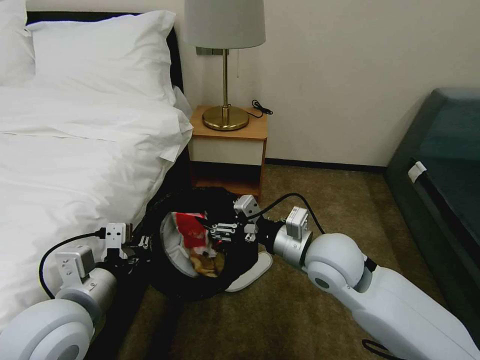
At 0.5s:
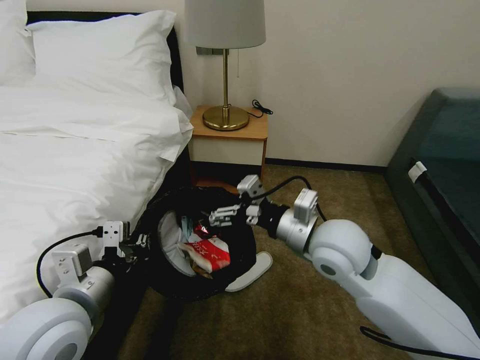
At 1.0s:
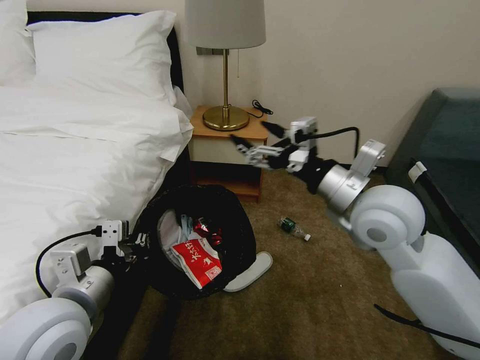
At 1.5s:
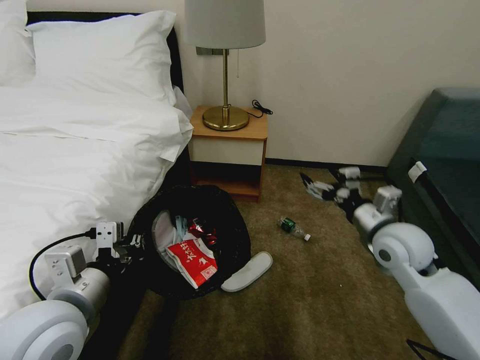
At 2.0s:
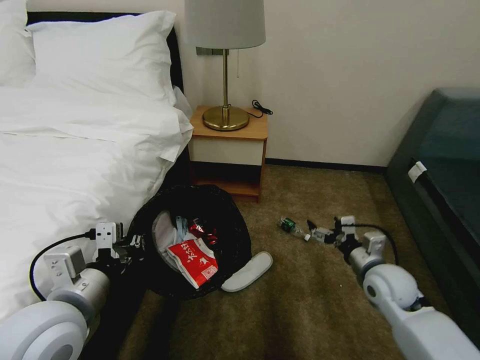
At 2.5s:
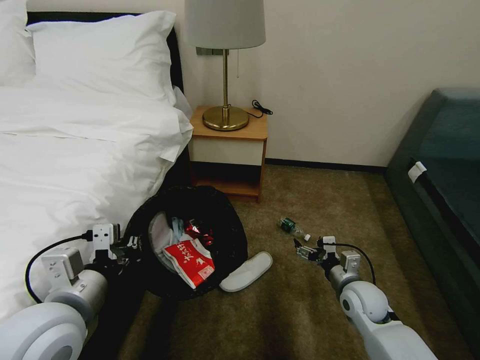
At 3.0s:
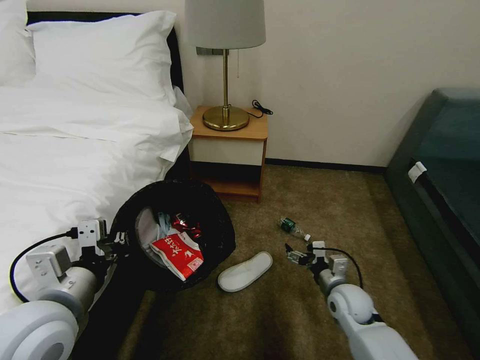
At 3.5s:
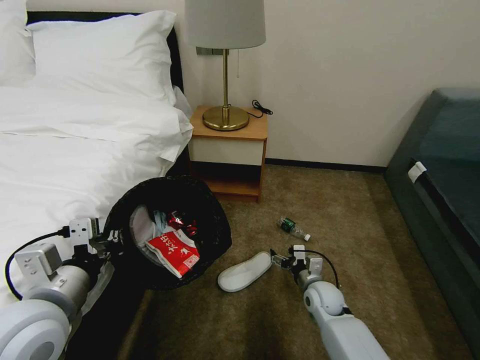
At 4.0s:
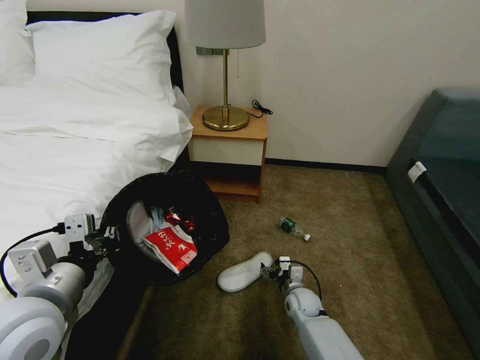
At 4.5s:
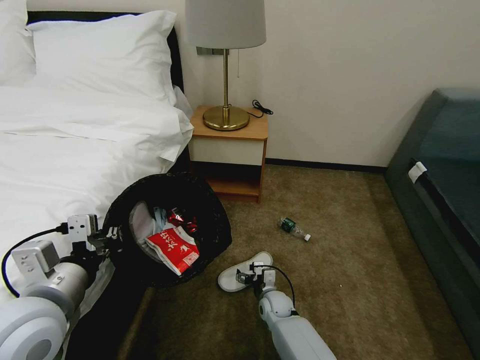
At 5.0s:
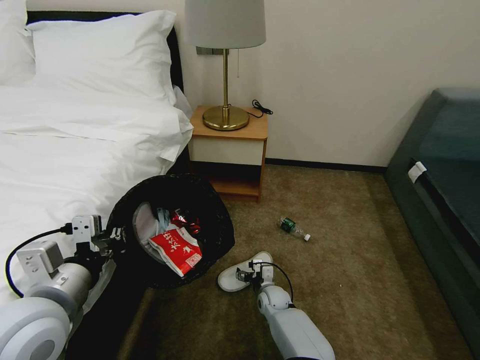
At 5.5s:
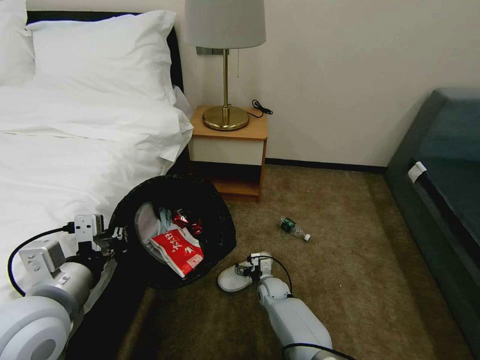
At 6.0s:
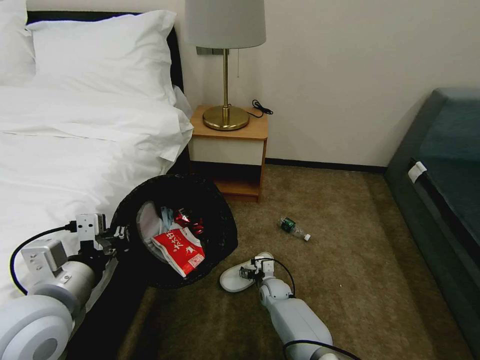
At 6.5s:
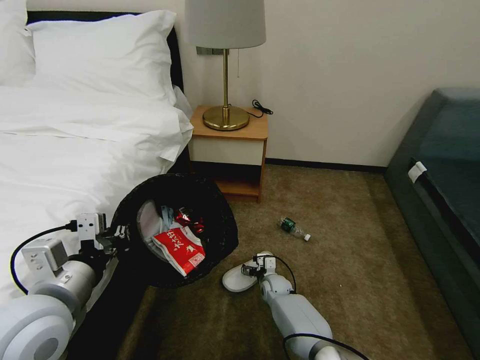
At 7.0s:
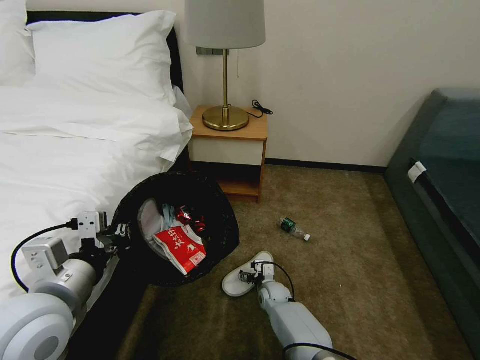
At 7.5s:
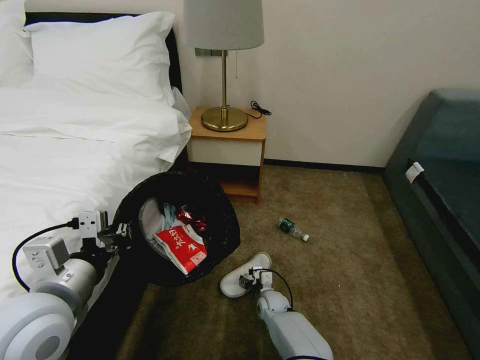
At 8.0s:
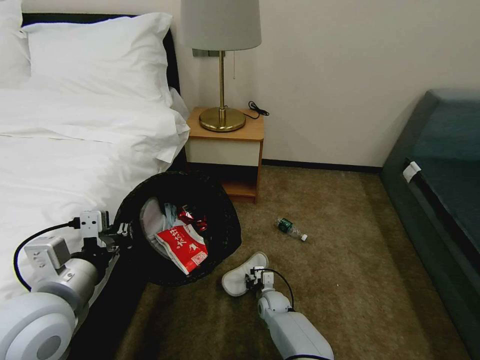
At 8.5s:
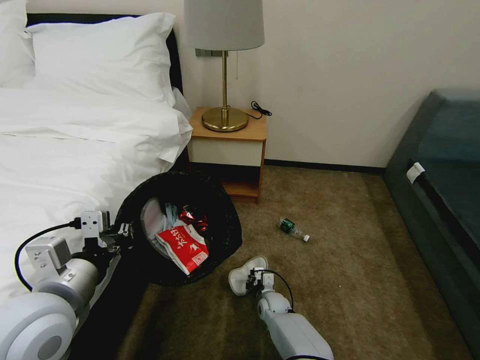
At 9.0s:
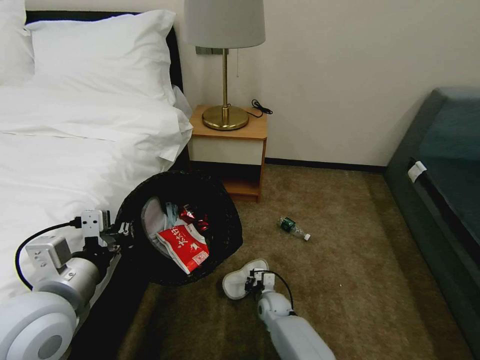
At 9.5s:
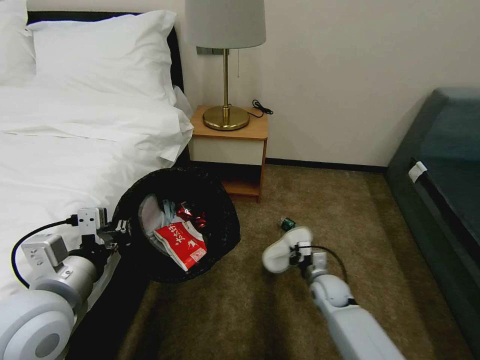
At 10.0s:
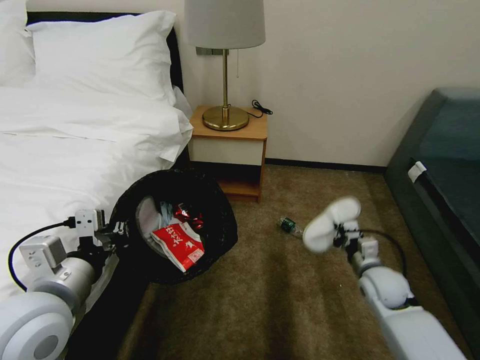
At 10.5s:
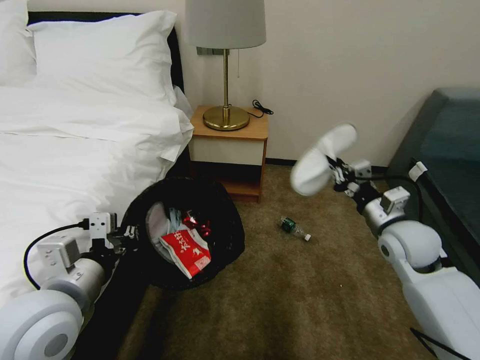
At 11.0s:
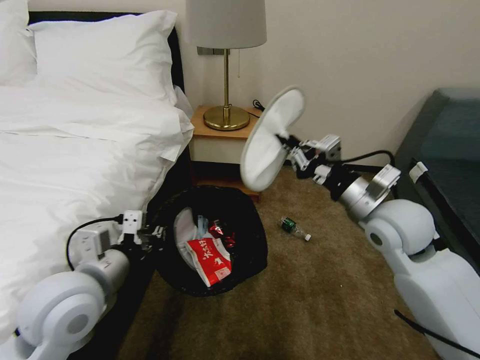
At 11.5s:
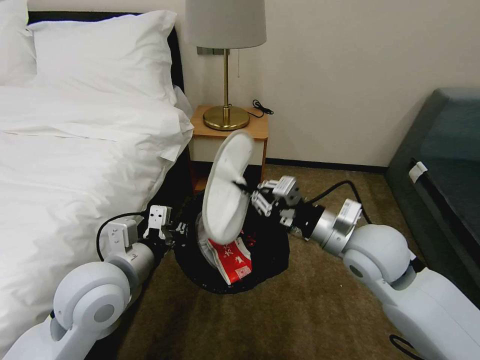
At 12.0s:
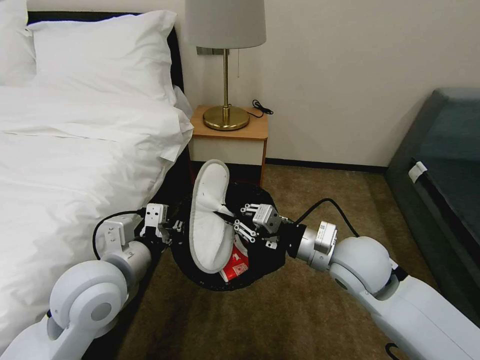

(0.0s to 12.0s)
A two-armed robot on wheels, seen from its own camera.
Task of the whole recording: Pick up the trash bin, then pick up the garbage on the floor and place it into the trash bin.
0.0s - 2.0s: The right gripper heads to the right and downward, covering approximately 20 cm.
2.0s - 4.0s: The right gripper moves downward and to the left, approximately 25 cm.
4.0s - 6.0s: The left gripper closes up, while the right gripper heads to the left, covering roughly 5 cm.
6.0s - 8.0s: The right gripper closes its fingers.
8.0s - 10.0s: The right gripper is displaced to the right and upward by approximately 30 cm, and closes its fingers.
10.0s - 12.0s: The left gripper goes roughly 5 cm forward; the right gripper shifts approximately 25 cm upward and to the left.

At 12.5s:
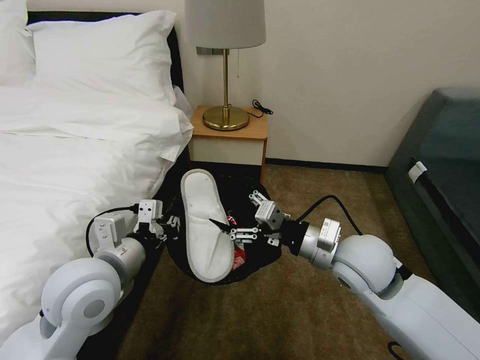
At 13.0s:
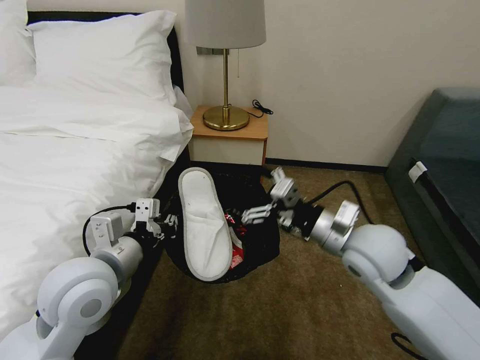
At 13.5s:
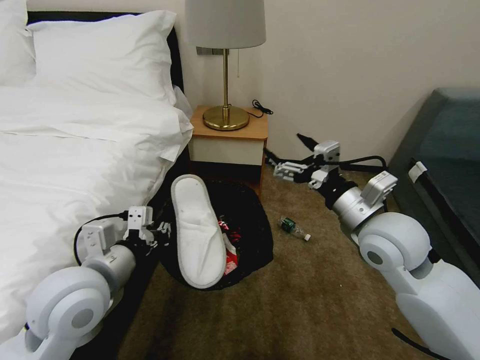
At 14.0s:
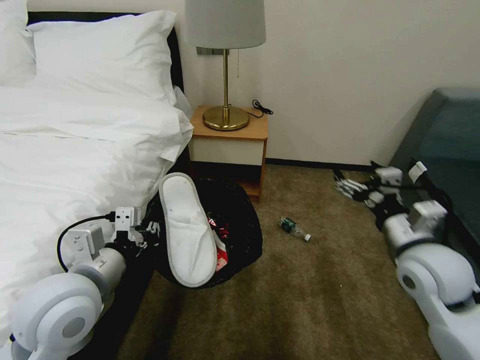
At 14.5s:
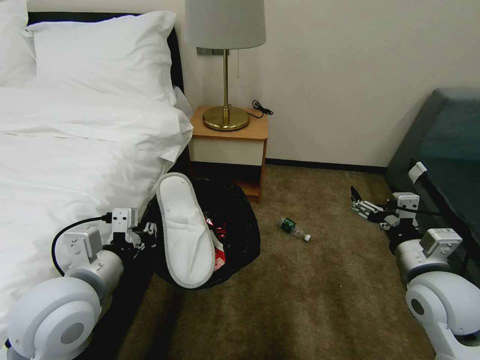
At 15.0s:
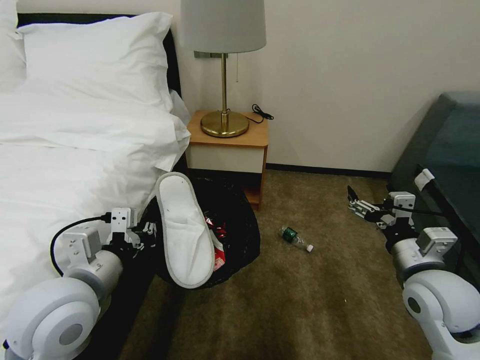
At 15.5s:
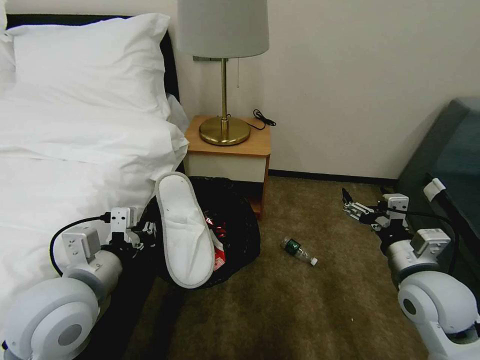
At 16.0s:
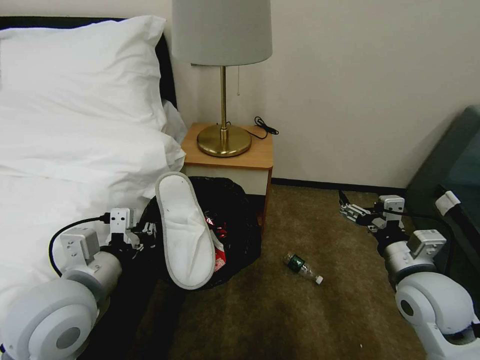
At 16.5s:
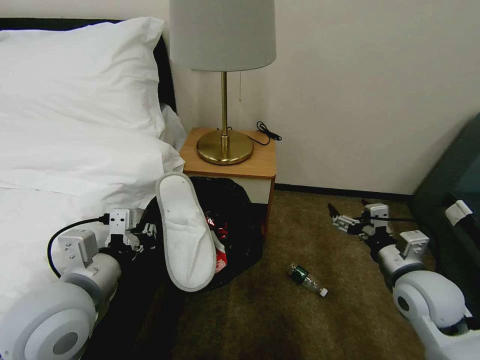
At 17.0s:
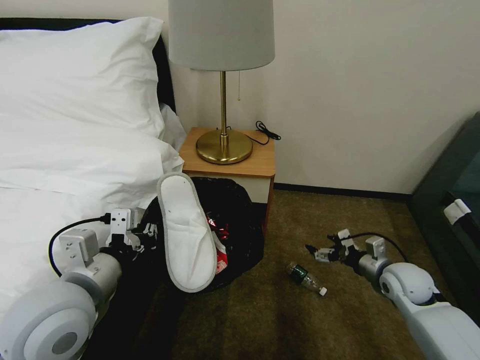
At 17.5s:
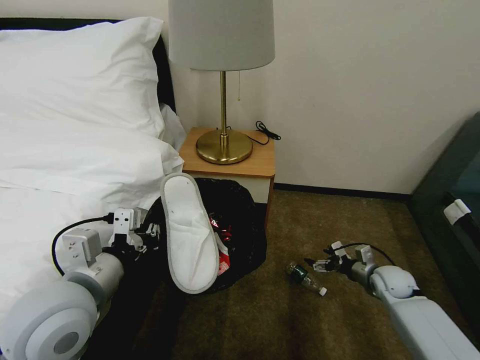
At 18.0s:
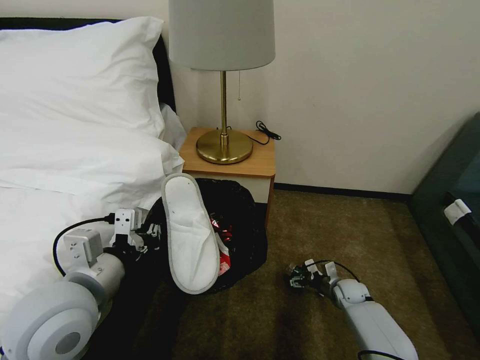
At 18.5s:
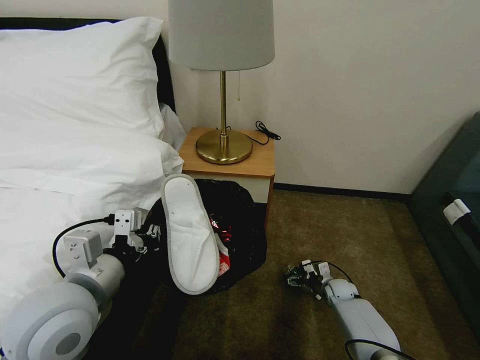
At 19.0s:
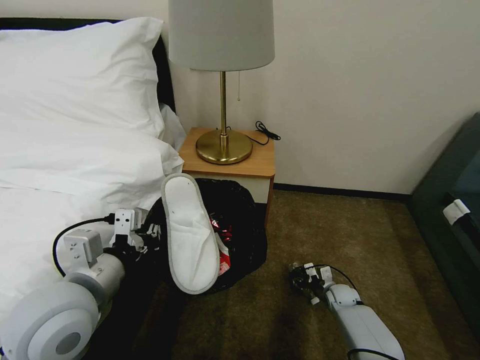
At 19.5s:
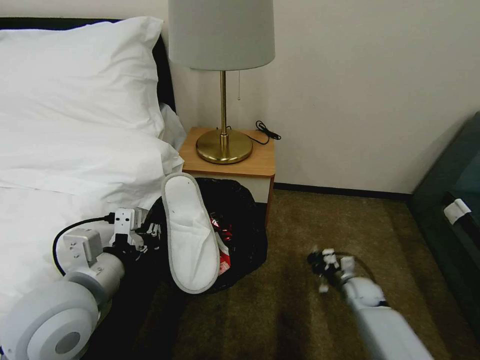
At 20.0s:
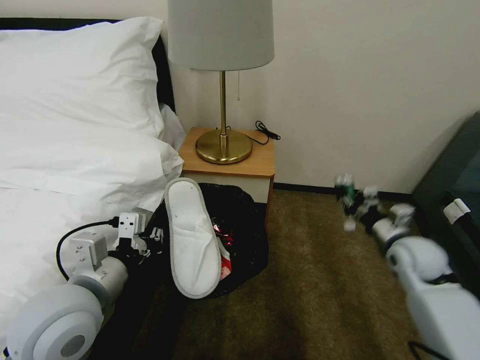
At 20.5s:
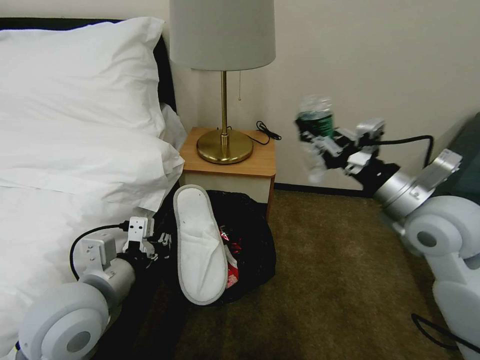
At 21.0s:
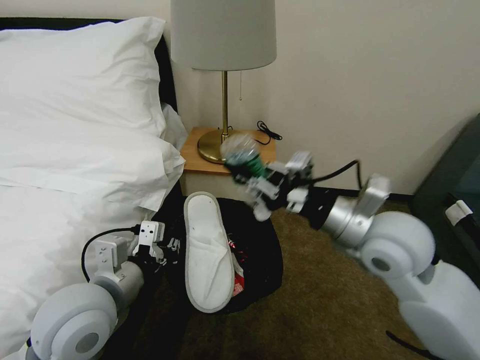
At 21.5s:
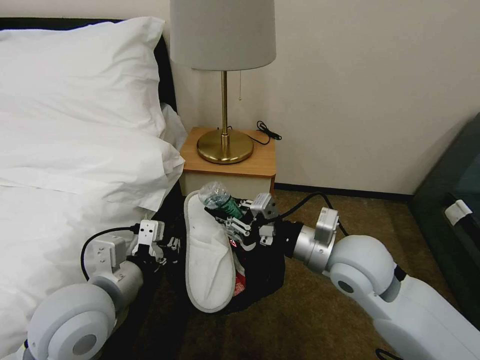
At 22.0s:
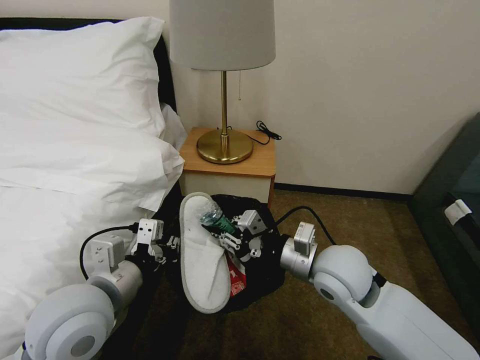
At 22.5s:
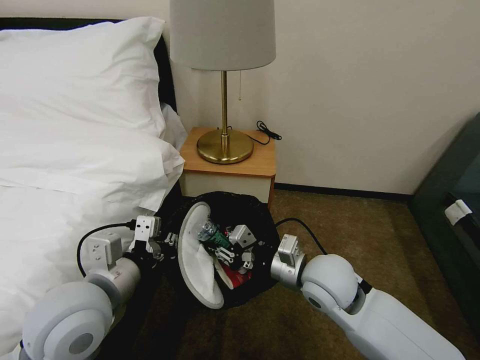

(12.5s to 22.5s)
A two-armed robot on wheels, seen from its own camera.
Task of the whole recording: Pick up the trash bin, then pick up the garbage on the floor and place it into the trash bin.
12.5s - 14.5s: The right gripper moves to the right and backward, roughly 15 cm.
16.5s - 18.5s: The right gripper is displaced downward by roughly 30 cm.
18.5s - 20.5s: The right gripper moves upward, approximately 50 cm, and closes.
20.5s - 22.5s: The right gripper shifts some 20 cm to the left and downward.

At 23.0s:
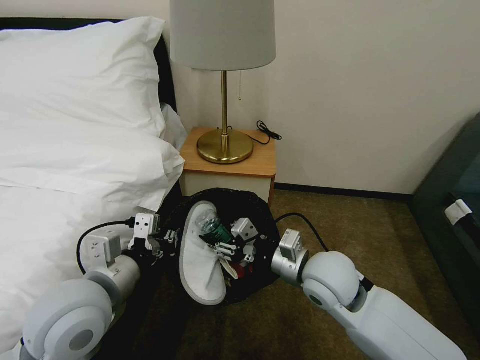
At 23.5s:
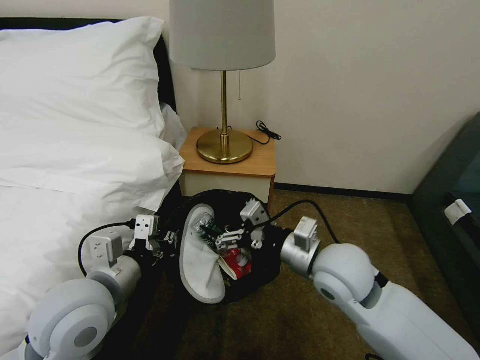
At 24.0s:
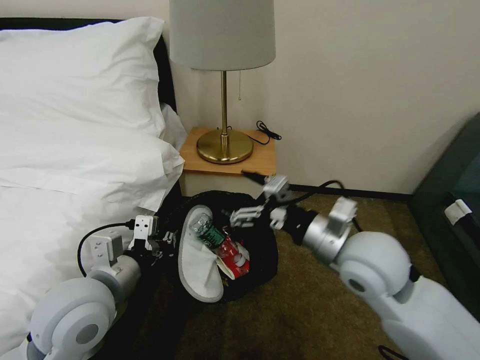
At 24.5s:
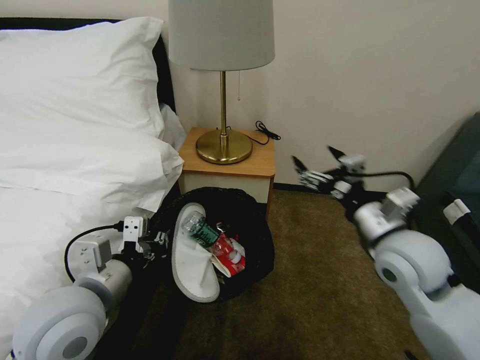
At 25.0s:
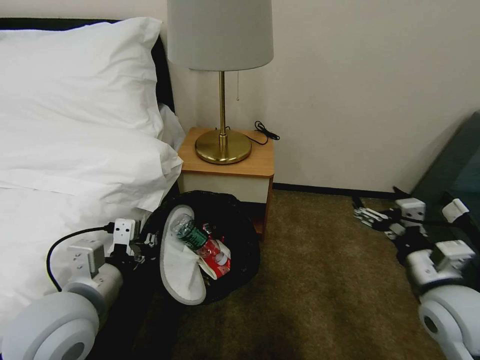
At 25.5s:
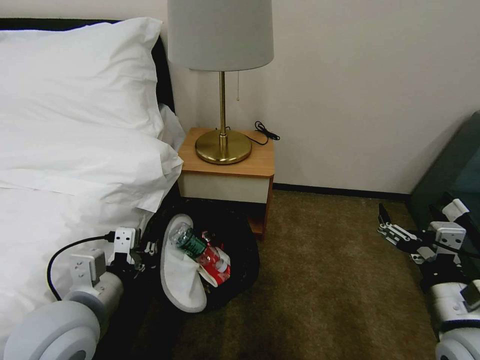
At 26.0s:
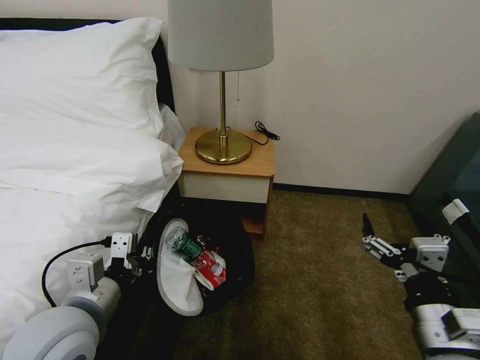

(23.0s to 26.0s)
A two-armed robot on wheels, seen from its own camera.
Task of the whole recording: Pick up the trash bin, then pick up the garbage on the floor and place it into the trash bin.
23.0s - 24.5s: The right gripper goes some 15 cm to the right and upward, and opens up.
24.5s - 26.0s: The right gripper shifts about 15 cm backward.
